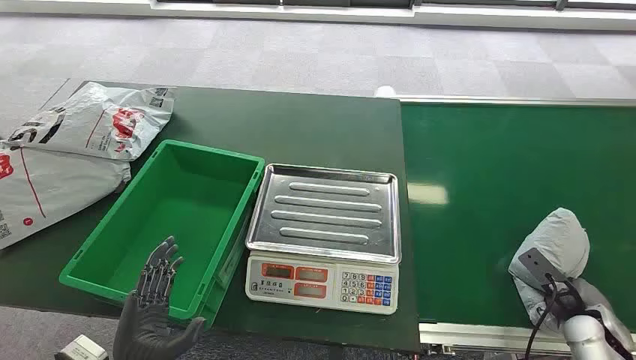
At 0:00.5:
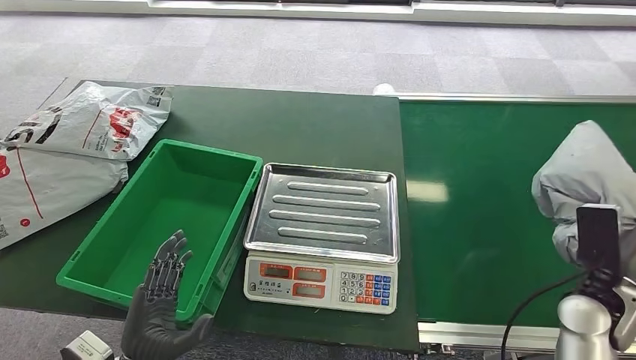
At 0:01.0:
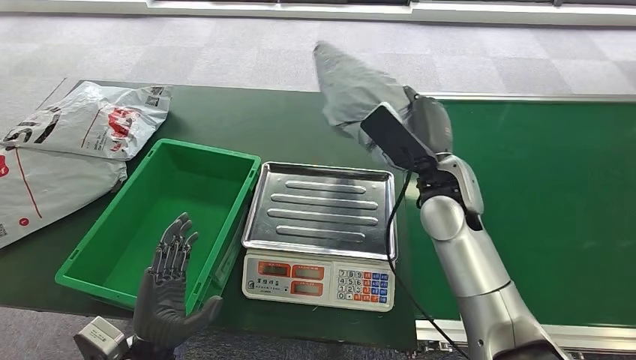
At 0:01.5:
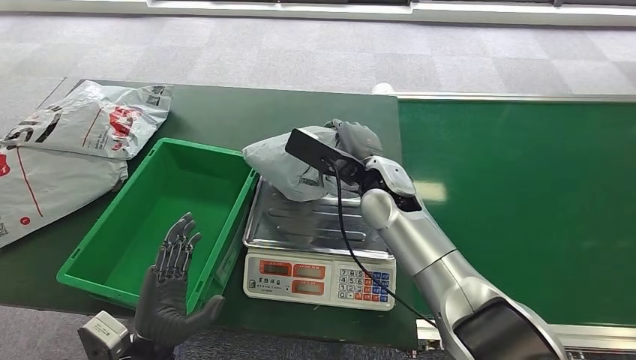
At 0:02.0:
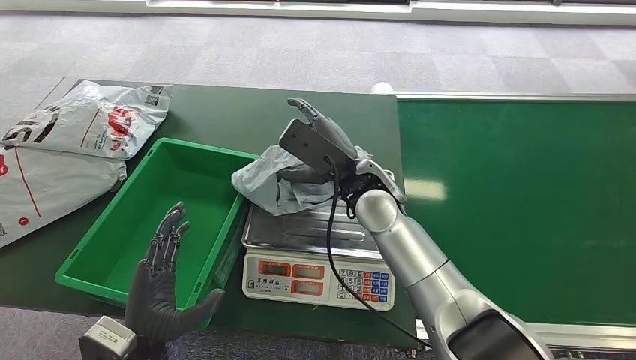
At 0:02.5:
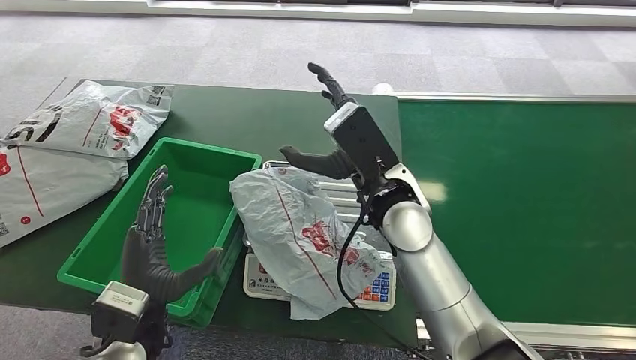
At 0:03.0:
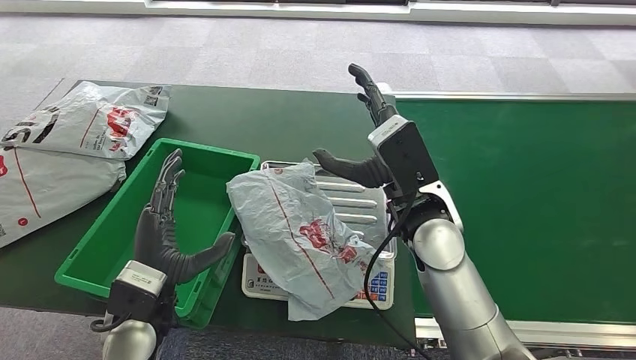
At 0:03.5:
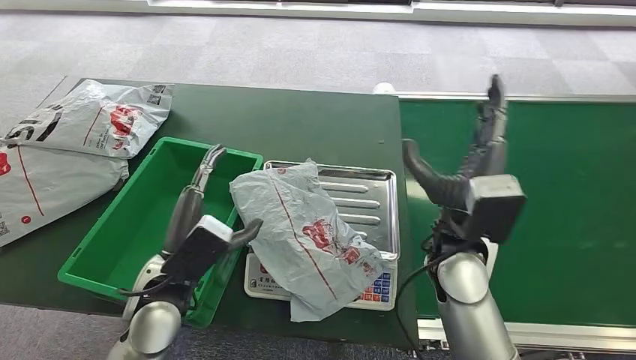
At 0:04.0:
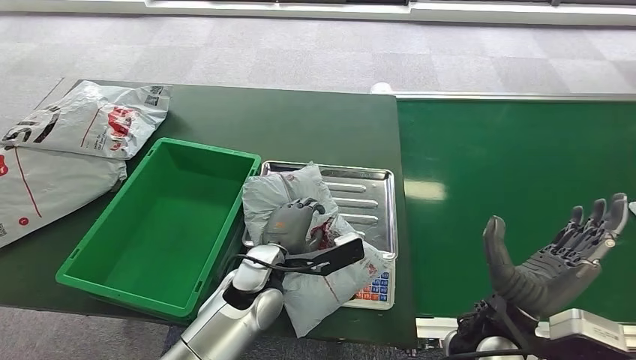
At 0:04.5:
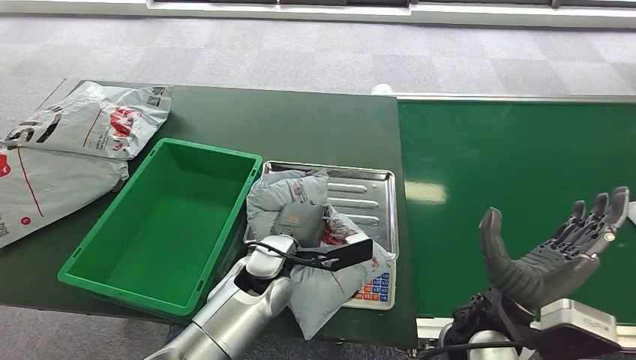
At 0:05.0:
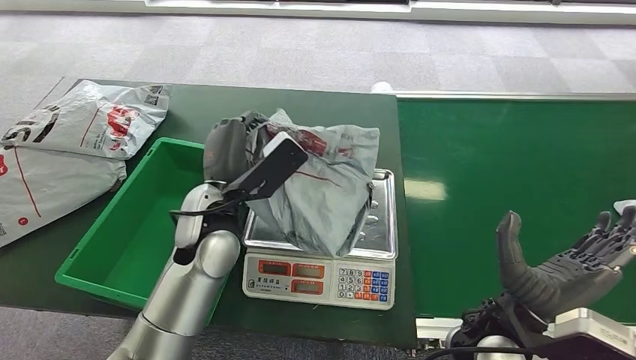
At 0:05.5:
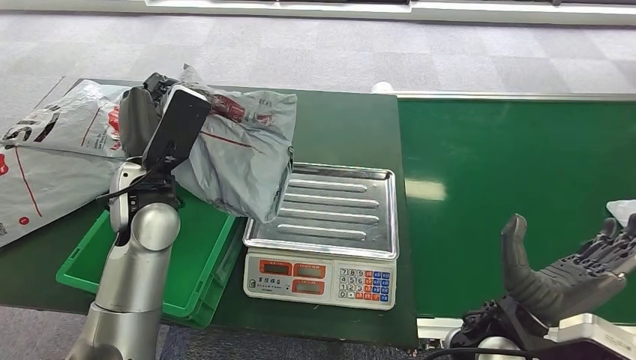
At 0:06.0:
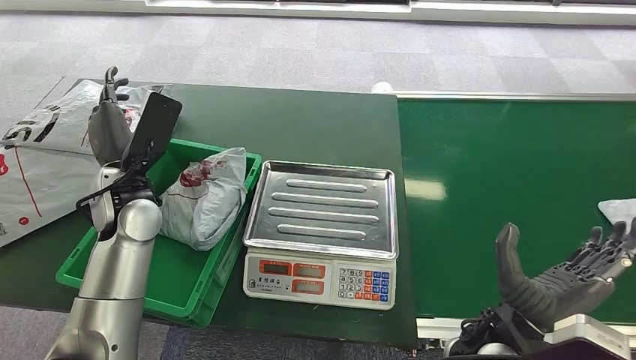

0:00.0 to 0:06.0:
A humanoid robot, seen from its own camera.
Step, 0:00.0 to 0:00.5: Pick up the package from the conveyor belt.
Step, 0:01.0 to 0:02.0: Place the package onto the inbound machine.
Step, 0:04.0 to 0:05.0: Pick up the package from the inbound machine.
Step, 0:05.5 to 0:06.0: Place the package into the parcel locker.
